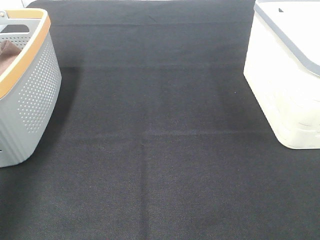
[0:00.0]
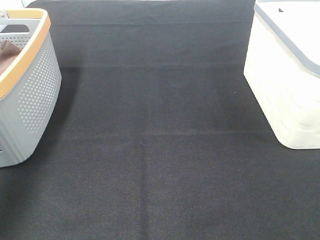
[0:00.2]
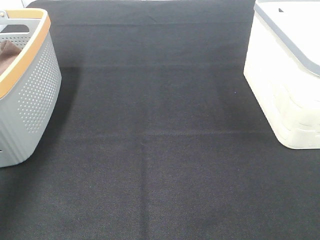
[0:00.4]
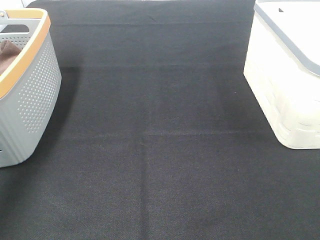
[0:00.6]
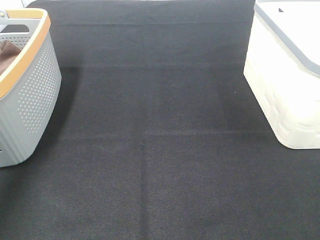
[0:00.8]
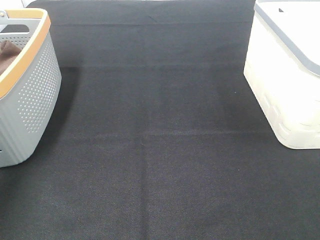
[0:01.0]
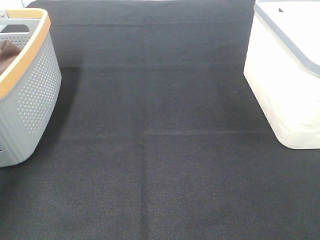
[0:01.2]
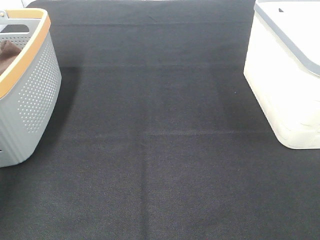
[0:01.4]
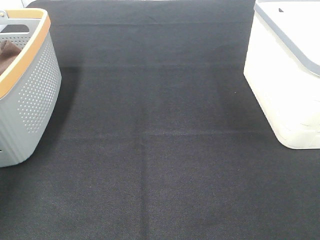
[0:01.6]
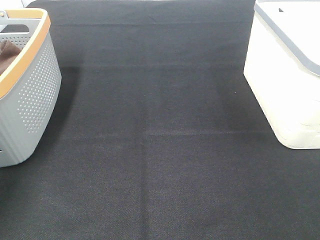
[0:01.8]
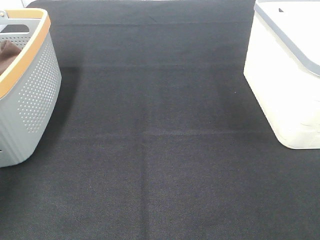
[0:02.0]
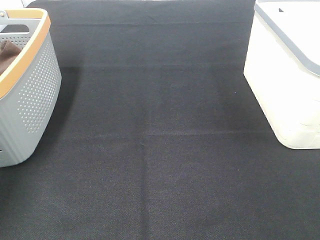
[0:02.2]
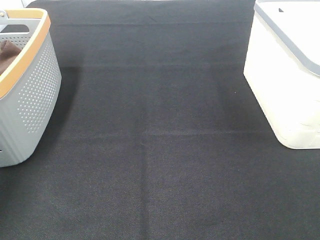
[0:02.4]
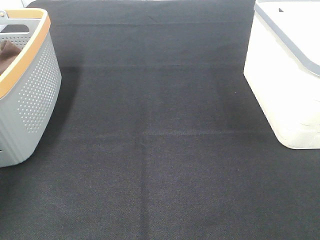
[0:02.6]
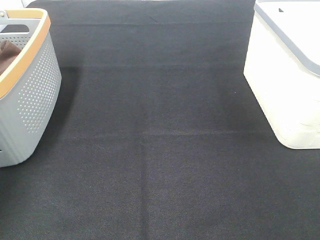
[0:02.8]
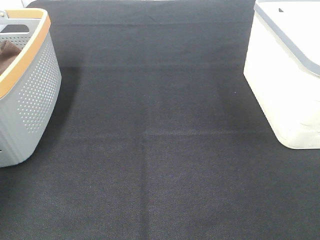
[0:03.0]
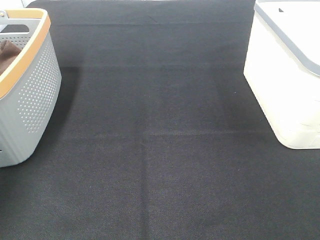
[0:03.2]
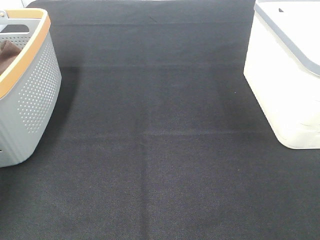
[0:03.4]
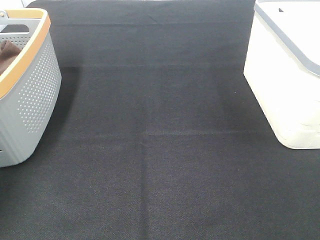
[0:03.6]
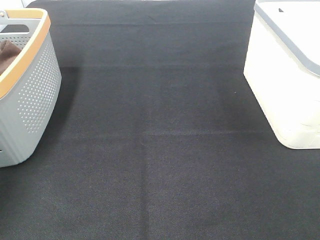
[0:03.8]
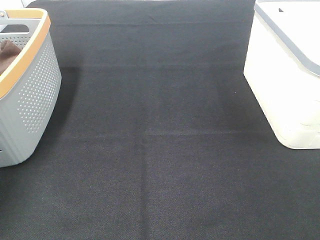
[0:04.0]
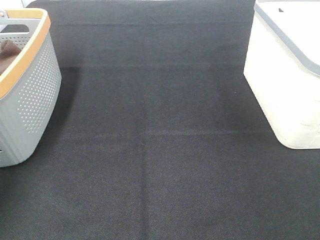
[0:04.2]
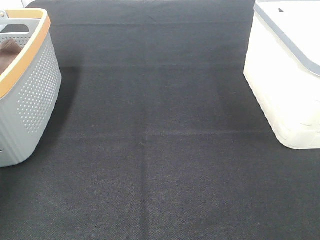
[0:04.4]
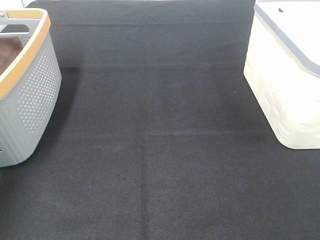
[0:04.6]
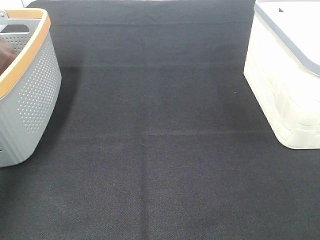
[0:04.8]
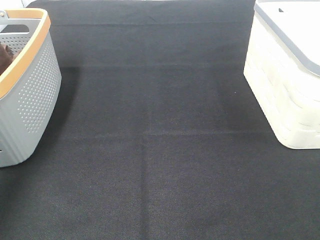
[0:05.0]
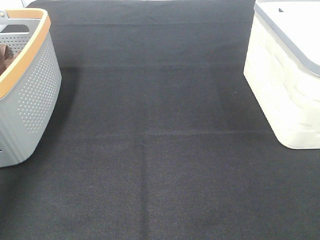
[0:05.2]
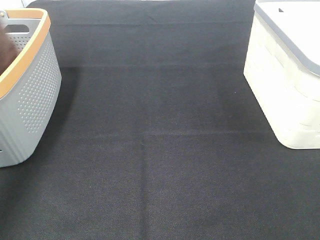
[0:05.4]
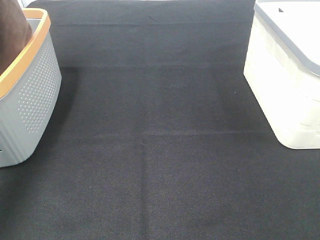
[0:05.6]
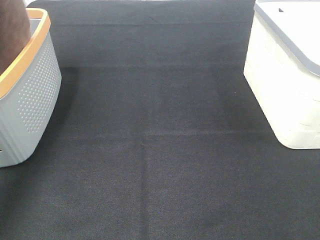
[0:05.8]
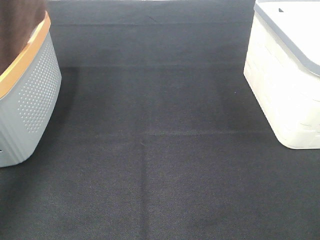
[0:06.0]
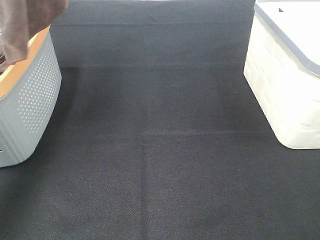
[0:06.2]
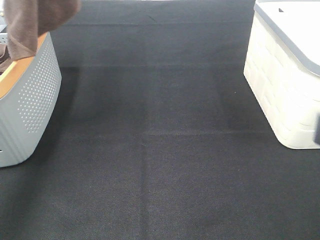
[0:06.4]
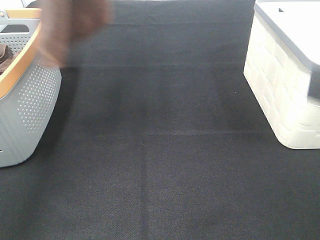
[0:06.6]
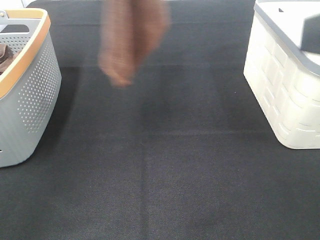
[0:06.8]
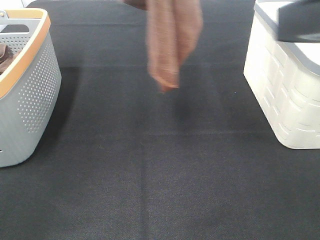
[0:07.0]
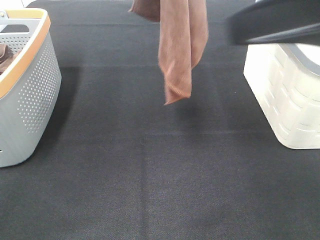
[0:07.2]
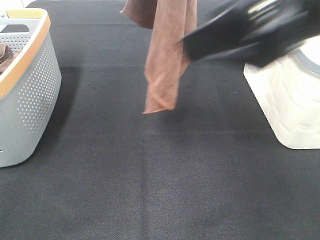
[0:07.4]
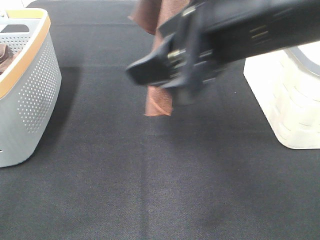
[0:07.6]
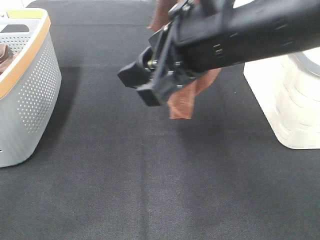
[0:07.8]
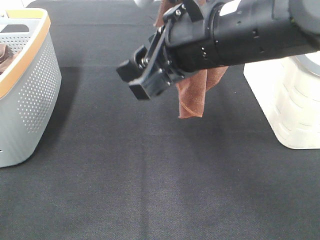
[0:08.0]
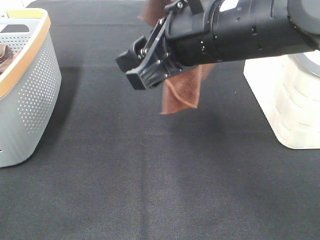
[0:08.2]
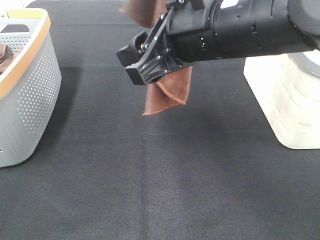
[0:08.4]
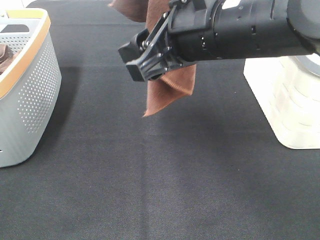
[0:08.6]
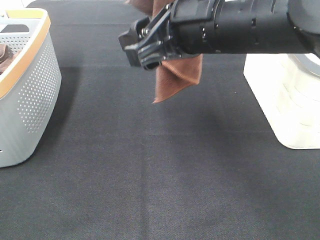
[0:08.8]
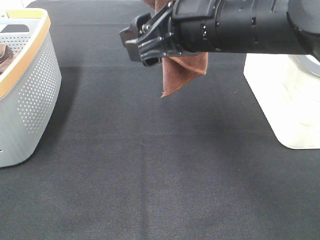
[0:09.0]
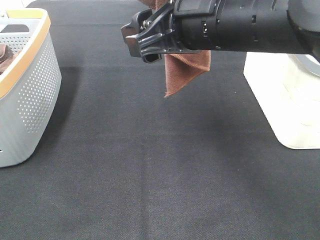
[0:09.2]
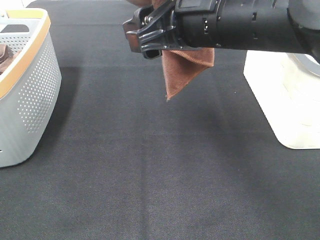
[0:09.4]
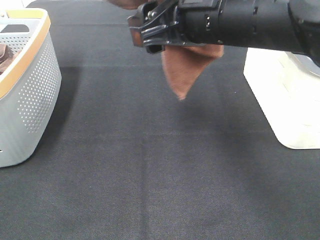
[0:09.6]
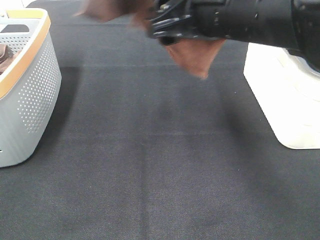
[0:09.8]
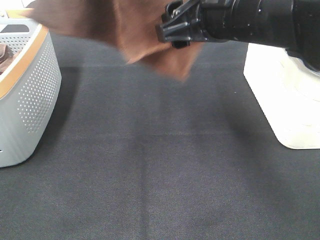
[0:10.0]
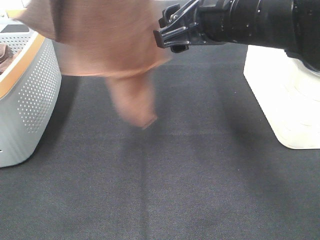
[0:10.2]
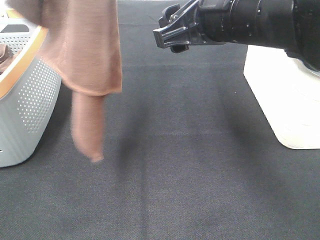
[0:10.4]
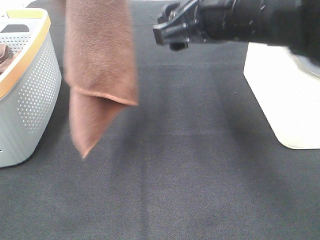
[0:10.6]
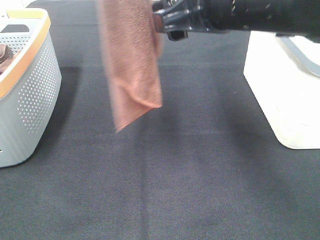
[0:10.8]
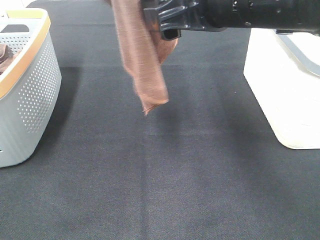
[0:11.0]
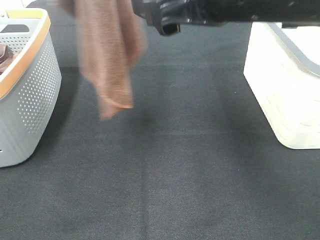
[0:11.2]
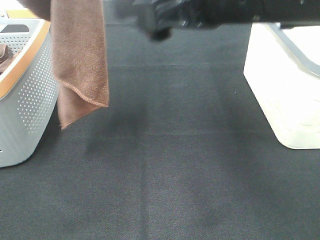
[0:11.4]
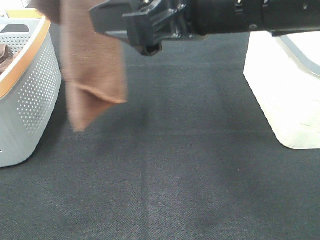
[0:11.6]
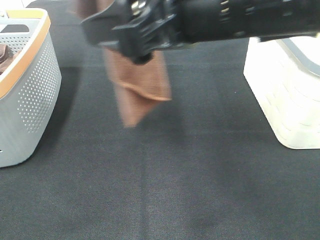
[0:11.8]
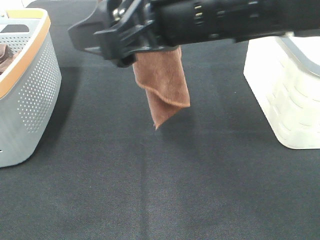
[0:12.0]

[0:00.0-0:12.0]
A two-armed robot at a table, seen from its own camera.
Task of the whole recording: Remove the towel and place it.
0:04.4 to 0:06.0: The left gripper shifts approximately 30 cm upward and backward.
0:06.0 to 0:07.6: The right gripper shifts about 25 cm to the left and forward, while the left gripper is displaced to the right by about 20 cm.
0:07.6 to 0:09.0: The right gripper ends up about 5 cm from where it was; the left gripper is displaced backward and upward by about 10 cm.
0:10.4 to 0:12.0: The right gripper travels to the left by roughly 5 cm.

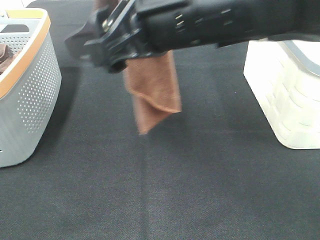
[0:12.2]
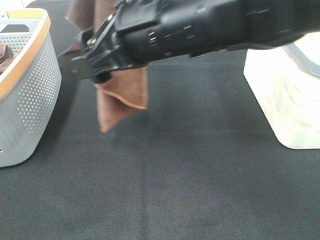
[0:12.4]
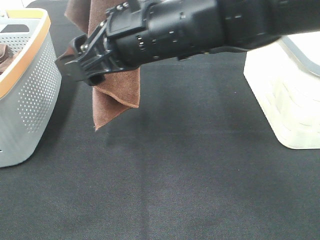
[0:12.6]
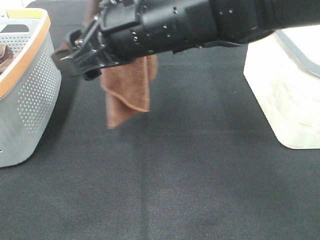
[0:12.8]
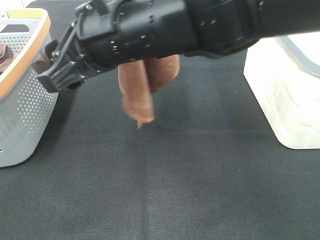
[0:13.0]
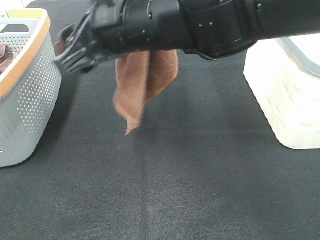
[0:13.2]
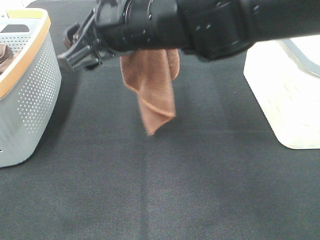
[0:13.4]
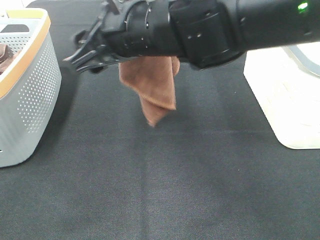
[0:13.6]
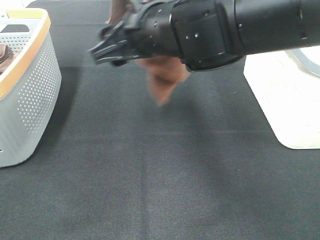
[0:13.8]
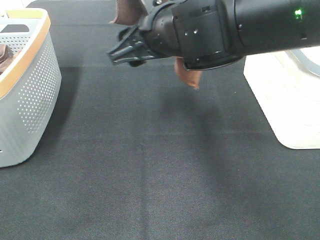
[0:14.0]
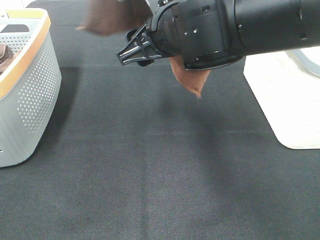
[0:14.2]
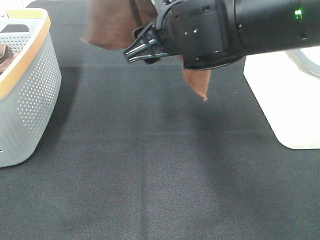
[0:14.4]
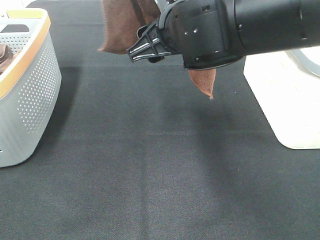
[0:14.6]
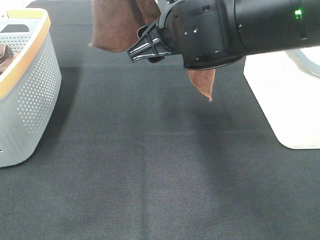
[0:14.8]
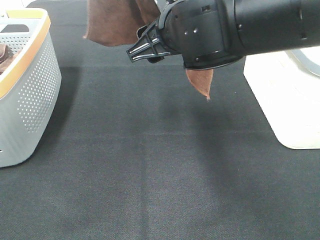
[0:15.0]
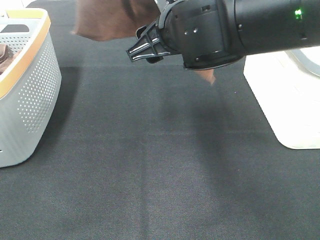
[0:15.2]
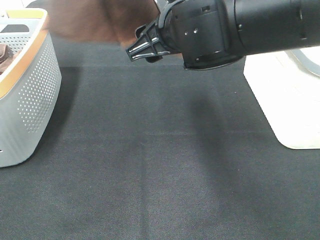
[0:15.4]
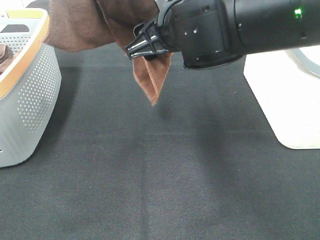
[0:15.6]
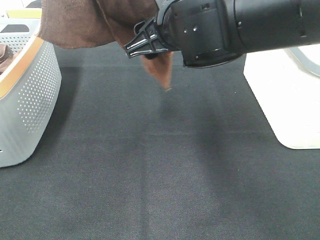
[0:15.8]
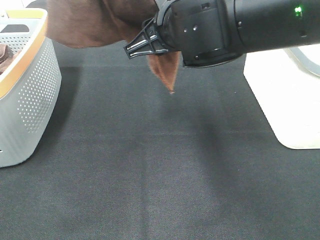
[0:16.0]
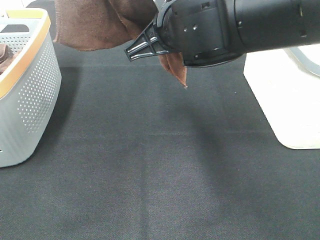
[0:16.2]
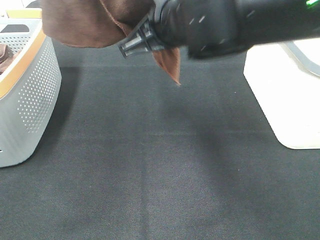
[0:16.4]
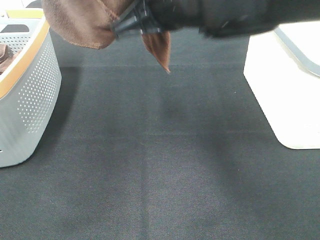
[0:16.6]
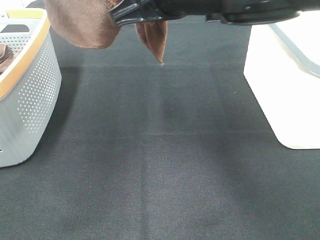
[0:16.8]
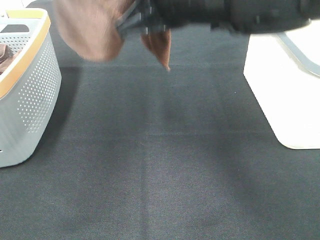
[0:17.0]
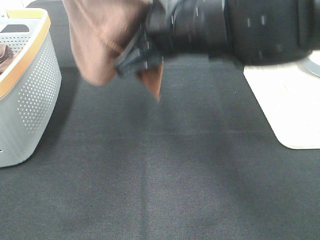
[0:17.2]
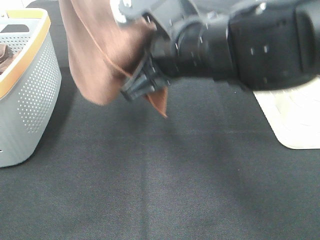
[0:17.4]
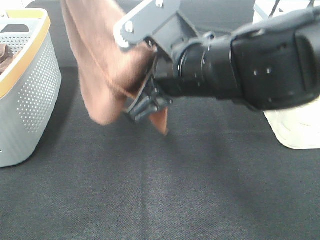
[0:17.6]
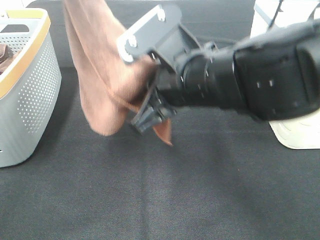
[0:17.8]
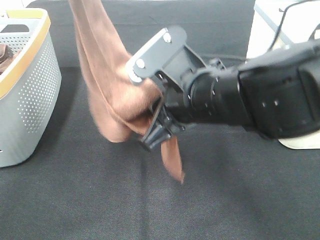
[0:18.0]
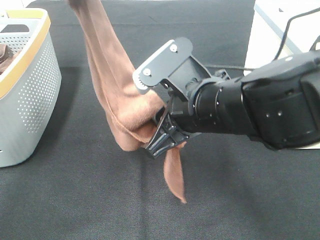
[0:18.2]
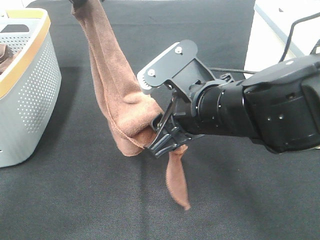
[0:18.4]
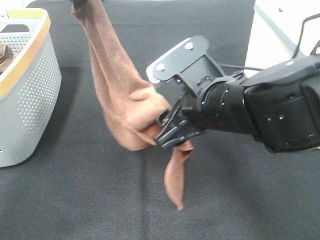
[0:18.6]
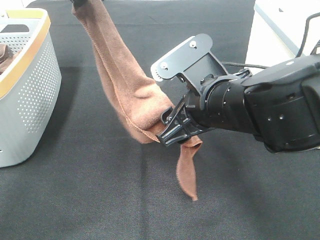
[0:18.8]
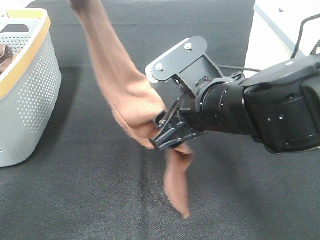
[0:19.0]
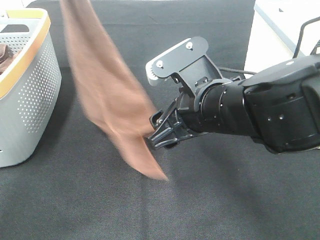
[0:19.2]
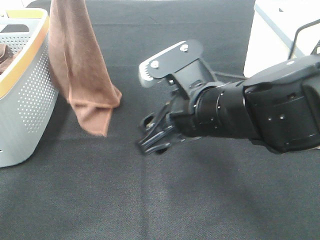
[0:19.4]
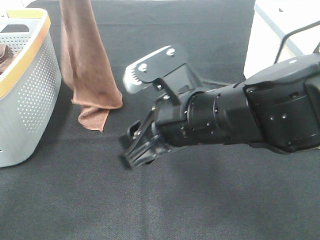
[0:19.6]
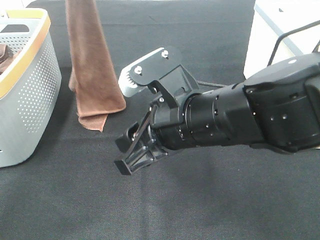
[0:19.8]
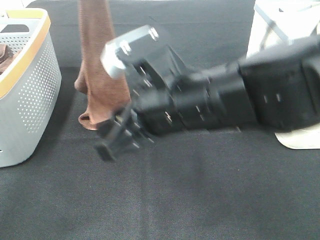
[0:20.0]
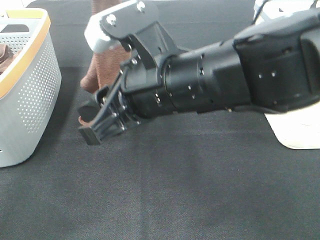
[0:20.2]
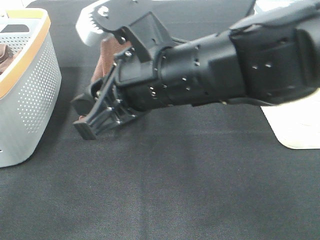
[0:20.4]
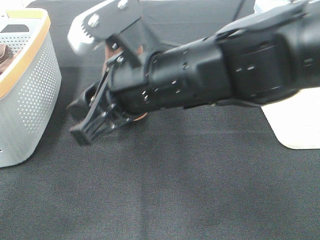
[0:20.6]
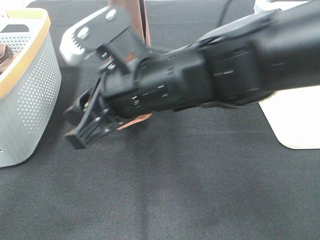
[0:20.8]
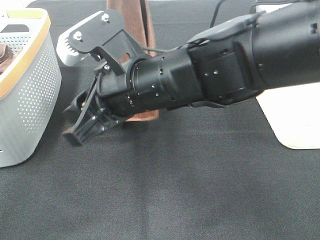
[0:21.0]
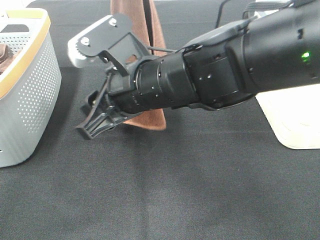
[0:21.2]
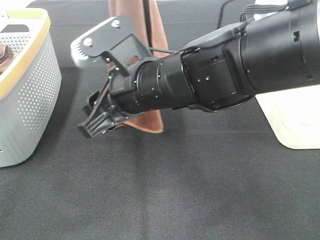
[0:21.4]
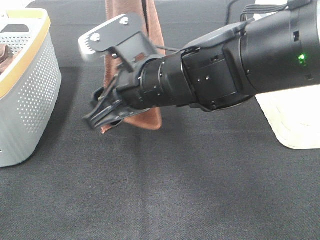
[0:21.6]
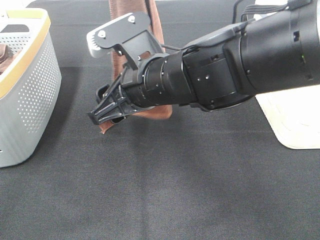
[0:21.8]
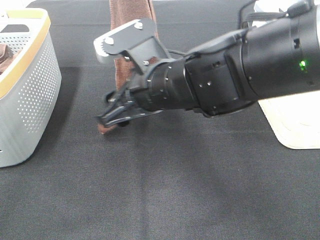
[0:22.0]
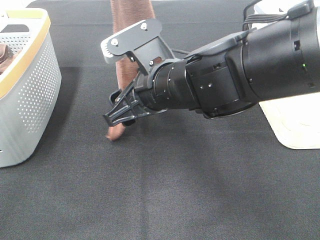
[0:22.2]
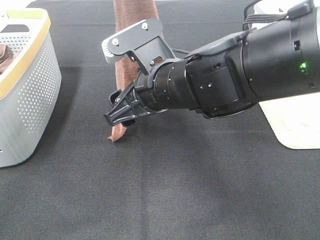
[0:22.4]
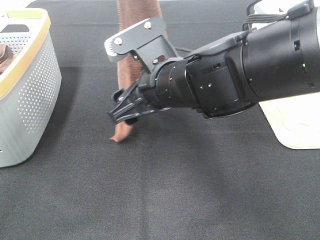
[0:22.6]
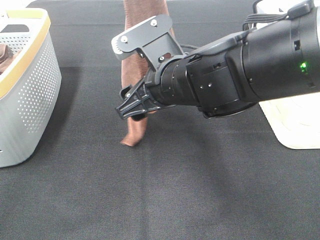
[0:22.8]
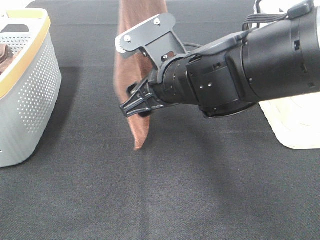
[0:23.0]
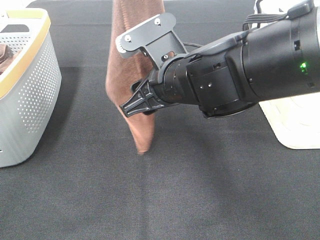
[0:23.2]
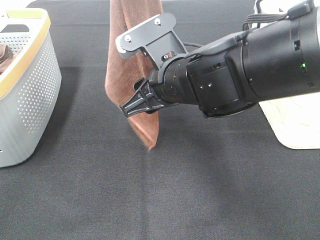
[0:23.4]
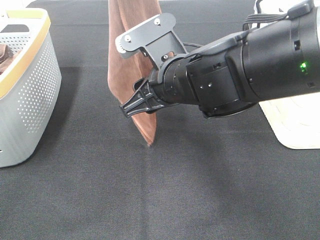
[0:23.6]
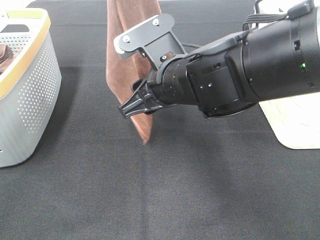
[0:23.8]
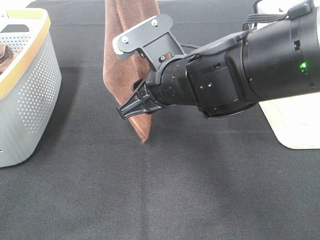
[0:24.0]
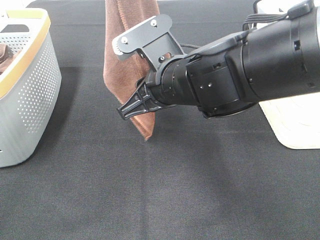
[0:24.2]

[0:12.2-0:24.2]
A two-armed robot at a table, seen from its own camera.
Task of the whole recording: Remove the towel and place it.
Step, 0:12.2 to 0:20.4: Right hand: grab a corner of the brown towel and straighten it.
Step, 0:20.6 to 0:22.6: Left hand: spread the brown towel flat on the table.
Step, 0:20.6 to 0:22.6: Right hand: spread the brown towel flat on the table.
0:12.2 to 0:13.8: The right gripper shifts some 5 cm forward.
0:13.8 to 0:15.2: The grippers make only small movements.
0:15.2 to 0:16.6: The right gripper closes.
0:16.6 to 0:18.2: The right gripper shifts approximately 10 cm downward and backward, and opens its fingers; the left gripper travels downward and forward by roughly 20 cm.
0:19.8 to 0:21.2: The right gripper heads to the left, covering about 5 cm, while the left gripper ends up some 5 cm from where it was.
0:22.6 to 0:24.2: The right gripper closes up.
